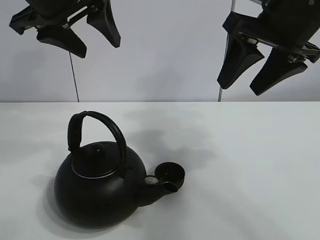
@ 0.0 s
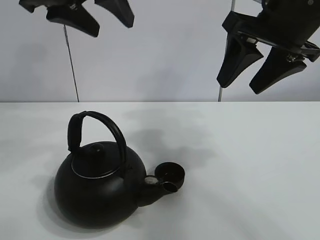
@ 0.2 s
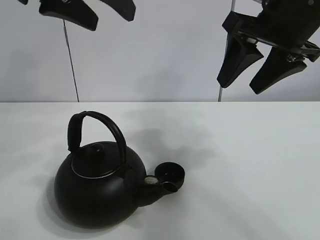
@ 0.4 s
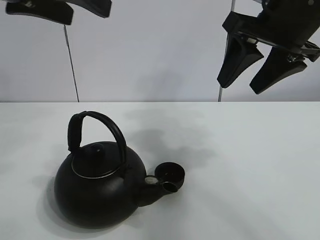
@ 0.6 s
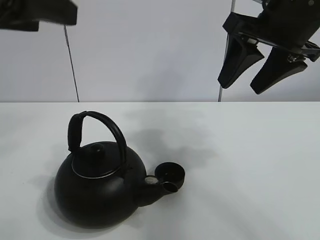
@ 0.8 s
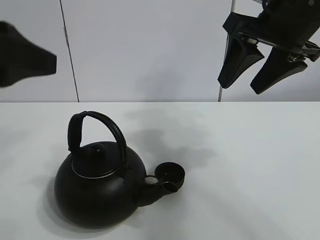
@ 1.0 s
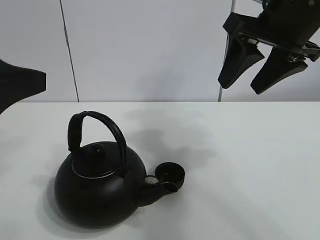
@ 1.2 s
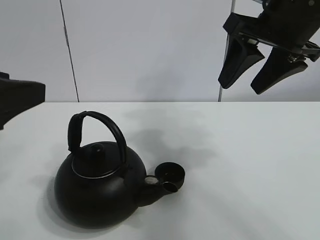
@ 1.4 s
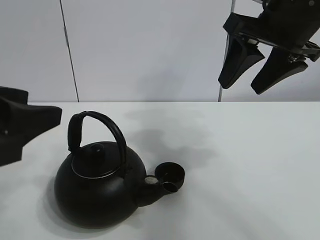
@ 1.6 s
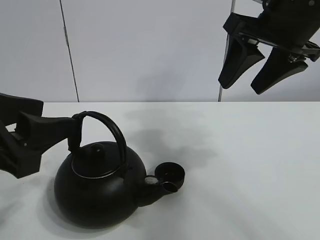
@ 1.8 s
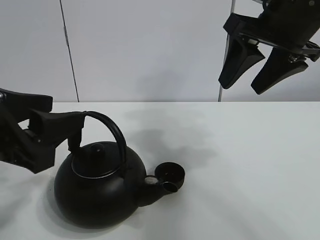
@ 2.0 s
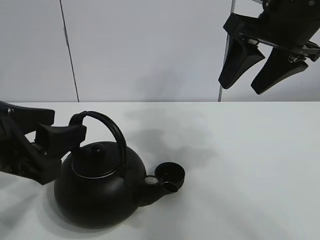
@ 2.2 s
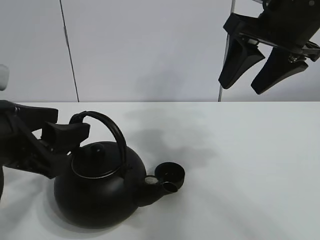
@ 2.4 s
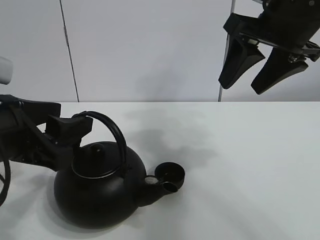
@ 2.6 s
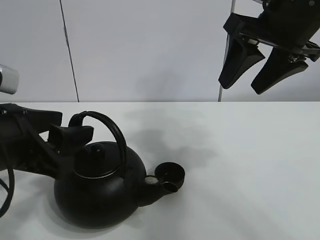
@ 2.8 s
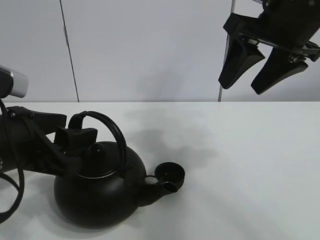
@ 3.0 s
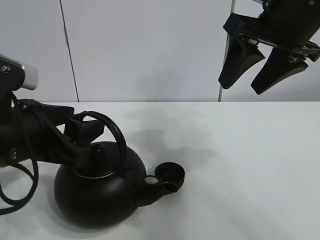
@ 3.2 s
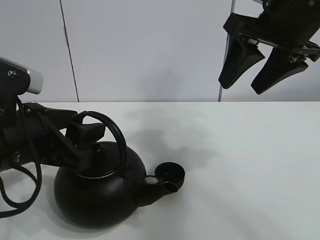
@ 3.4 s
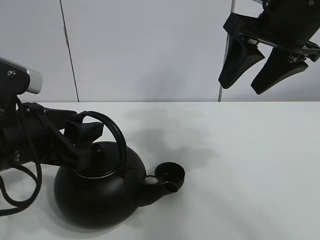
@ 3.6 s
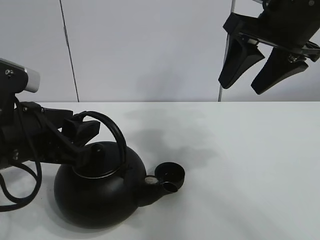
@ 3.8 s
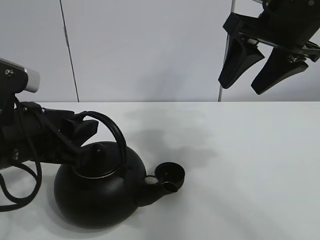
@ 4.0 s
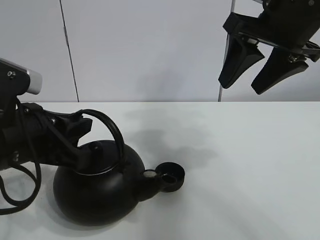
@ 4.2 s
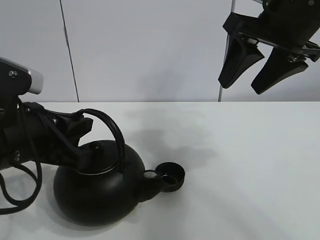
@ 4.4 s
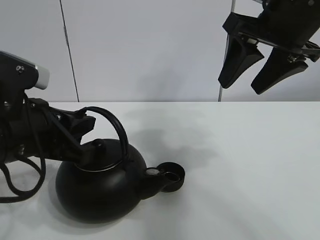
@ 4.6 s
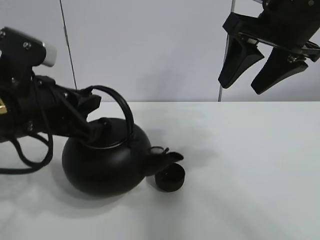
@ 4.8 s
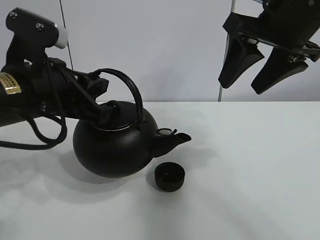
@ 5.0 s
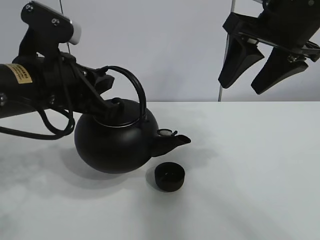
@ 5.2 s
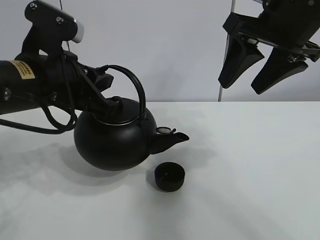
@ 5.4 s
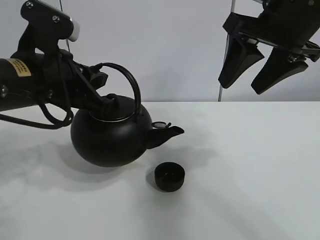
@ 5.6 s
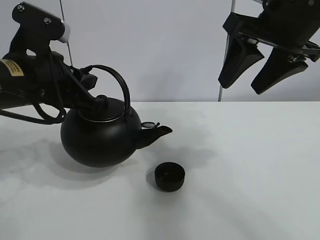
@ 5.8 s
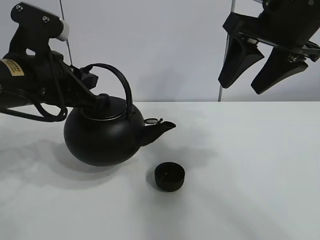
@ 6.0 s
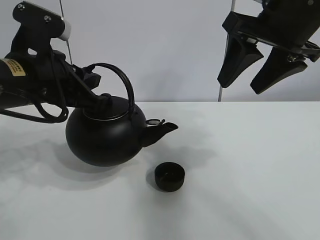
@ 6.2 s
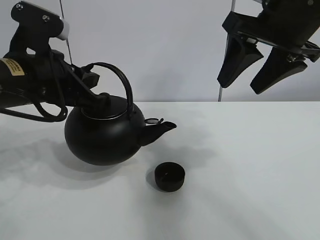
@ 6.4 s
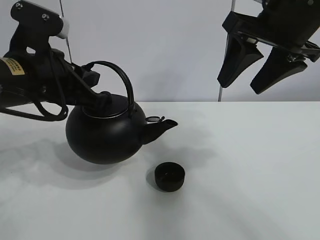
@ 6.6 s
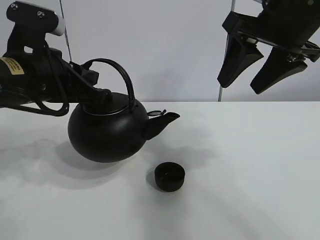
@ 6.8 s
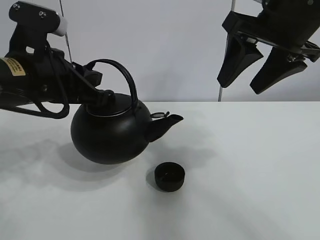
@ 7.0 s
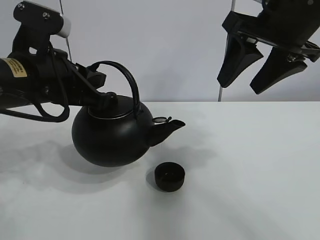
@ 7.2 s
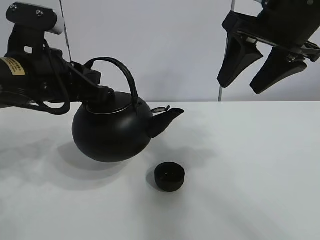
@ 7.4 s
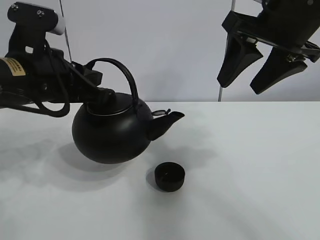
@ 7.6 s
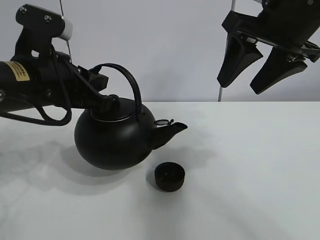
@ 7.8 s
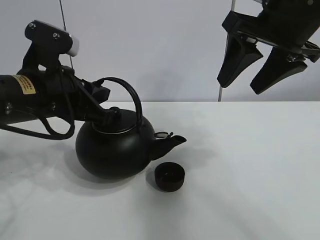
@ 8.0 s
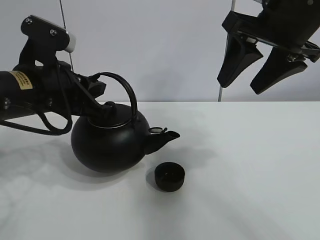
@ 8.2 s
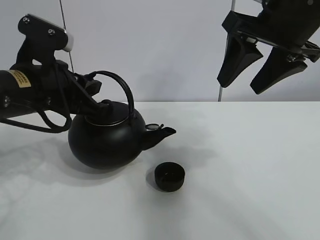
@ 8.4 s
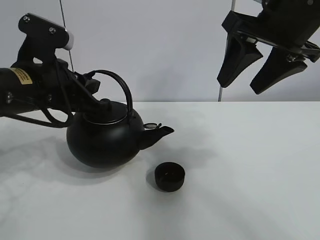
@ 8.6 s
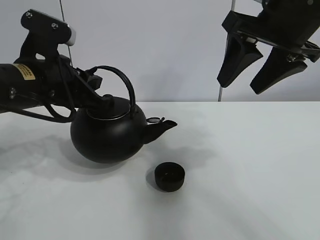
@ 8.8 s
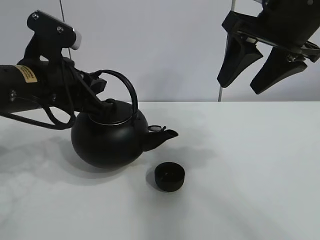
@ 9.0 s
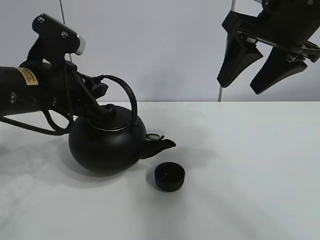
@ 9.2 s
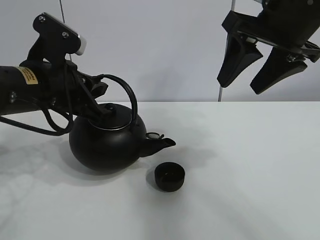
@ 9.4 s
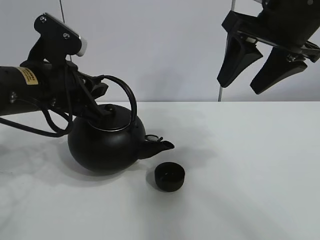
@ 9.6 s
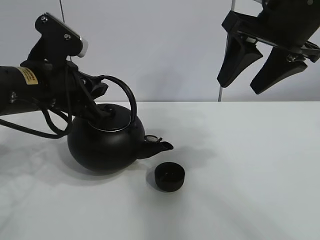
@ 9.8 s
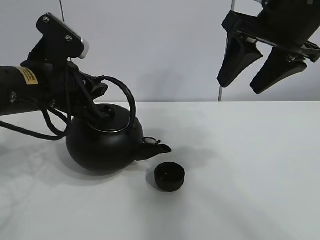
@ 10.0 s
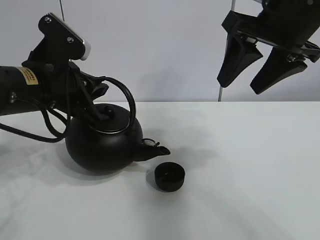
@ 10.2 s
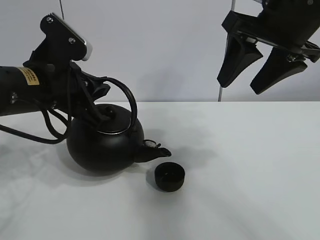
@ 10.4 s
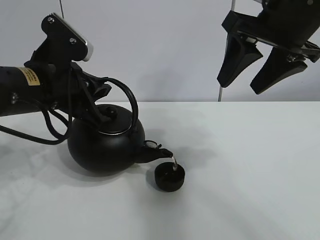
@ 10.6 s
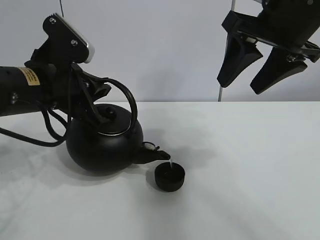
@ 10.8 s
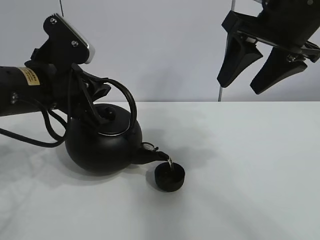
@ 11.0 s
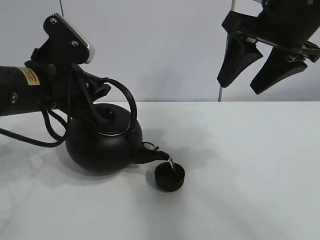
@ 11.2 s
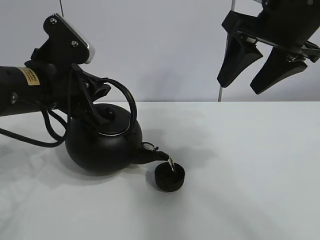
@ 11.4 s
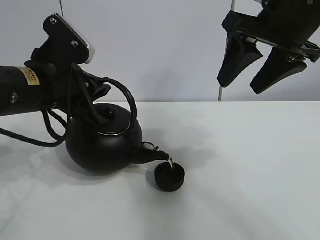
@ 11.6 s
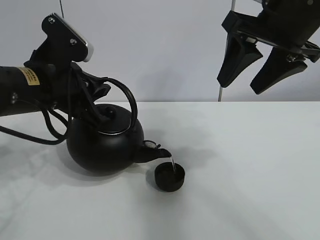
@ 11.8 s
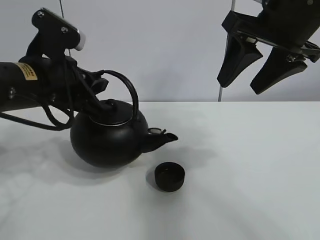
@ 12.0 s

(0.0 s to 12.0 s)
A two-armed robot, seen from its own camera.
Task of the whole recording: pour tea into the teacup.
Step, 0.0 s - 4.2 s: Pick up the teapot with the left gripper.
Step, 4.4 s - 11.8 s: Pour tea into the teacup with the left gripper.
0.0 s - 1.6 s: The left gripper heads backward, downward and to the left, covering approximately 20 cm.
1.6 s - 3.0 s: The left gripper shifts roughly 5 cm downward.
3.0 s - 4.4 s: The left gripper closes its fingers.
4.4 s - 6.0 s: The left gripper goes roughly 10 cm forward and upward.
6.0 s - 12.0 s: The grippers stay close to where they were, moving slightly.

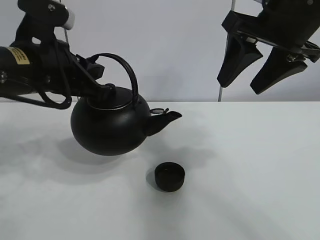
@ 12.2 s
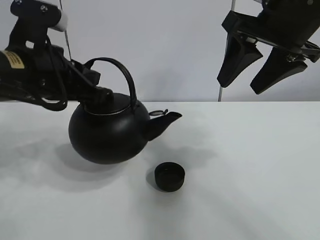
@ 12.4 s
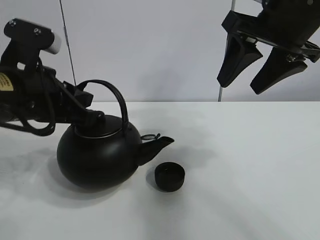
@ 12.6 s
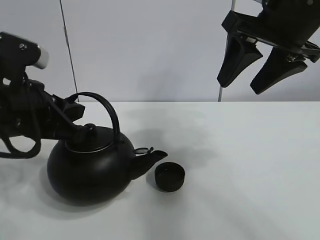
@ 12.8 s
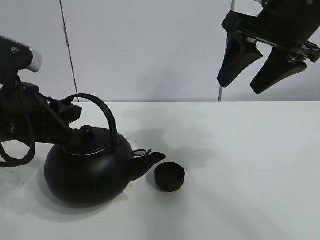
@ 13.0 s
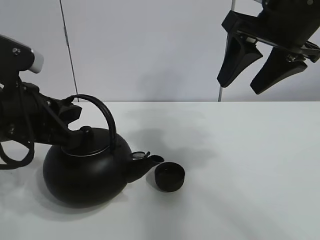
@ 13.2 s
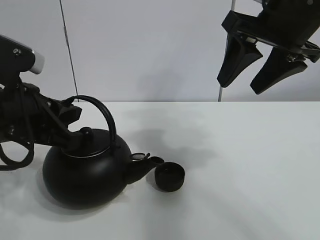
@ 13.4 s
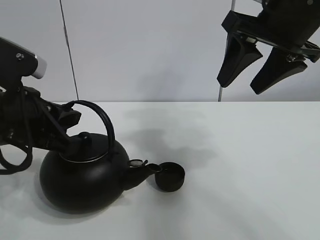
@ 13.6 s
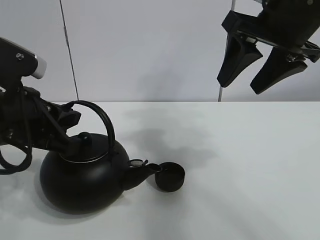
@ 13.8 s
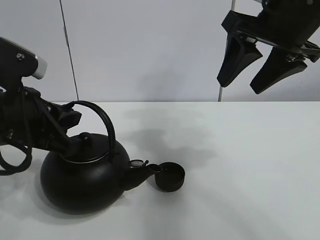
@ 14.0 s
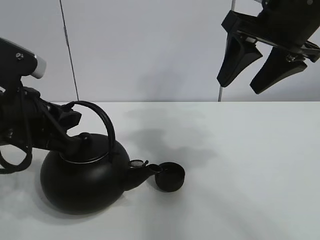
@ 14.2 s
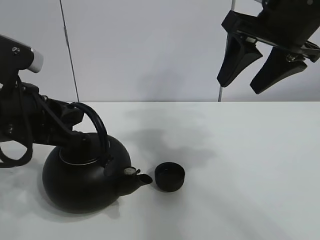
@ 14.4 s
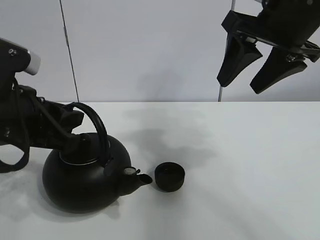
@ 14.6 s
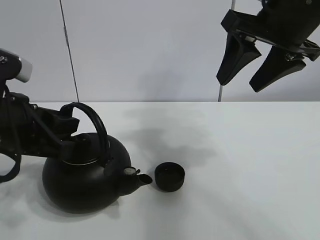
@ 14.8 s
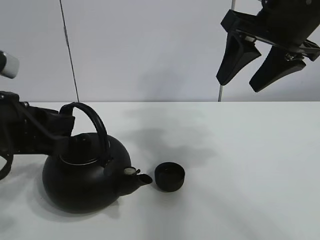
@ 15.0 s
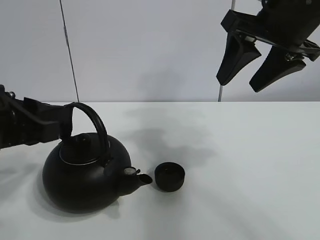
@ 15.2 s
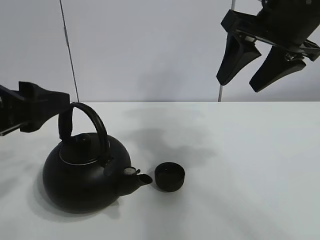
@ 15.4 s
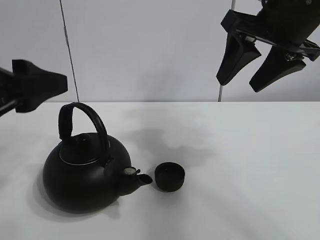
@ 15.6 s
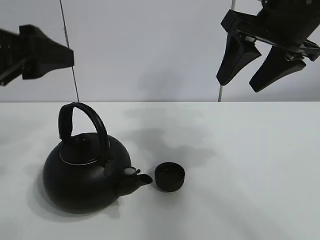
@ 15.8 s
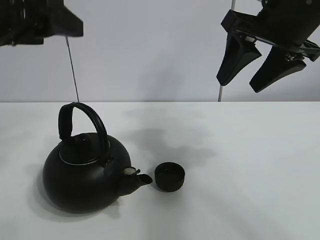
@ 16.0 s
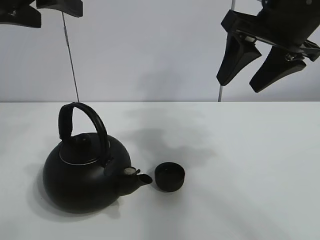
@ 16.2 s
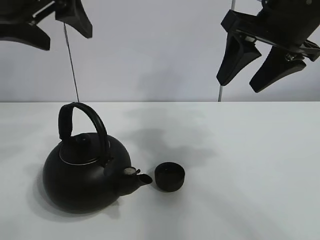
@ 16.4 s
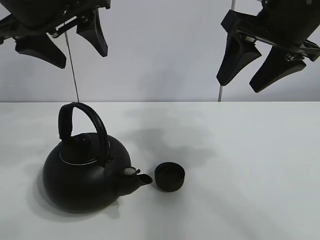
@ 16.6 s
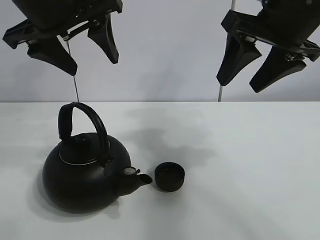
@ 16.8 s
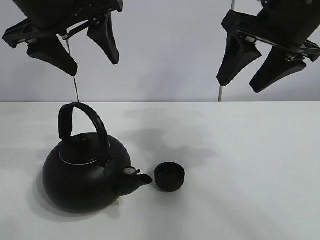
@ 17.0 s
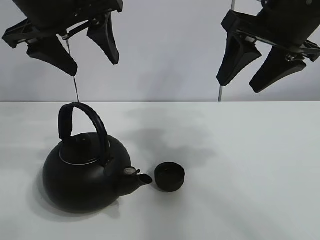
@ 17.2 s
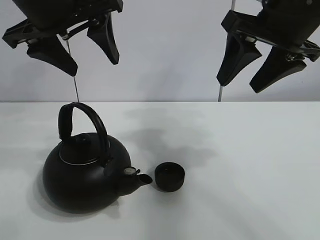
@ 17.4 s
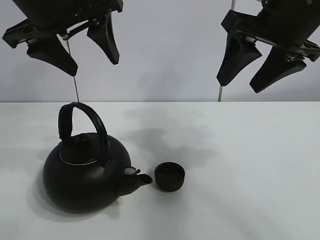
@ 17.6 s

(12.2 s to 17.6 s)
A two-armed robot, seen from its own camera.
Task of the whole recording: pour tea into the teacup.
12.2 s - 13.6 s: The left gripper goes roughly 5 cm backward.
13.6 s - 15.0 s: The left gripper opens.
15.0 s - 16.2 s: The left gripper moves upward, about 15 cm, and opens.
16.2 s - 17.6 s: The left gripper travels forward by about 5 cm.
